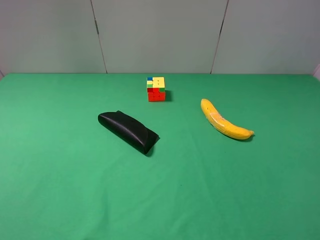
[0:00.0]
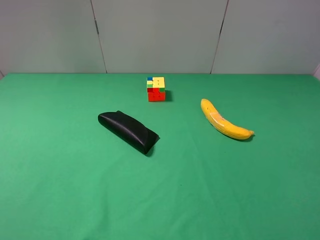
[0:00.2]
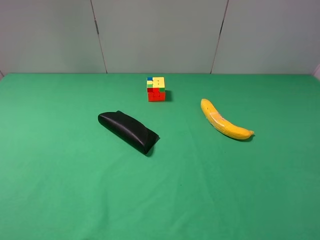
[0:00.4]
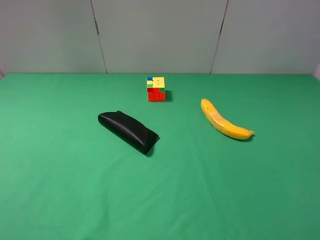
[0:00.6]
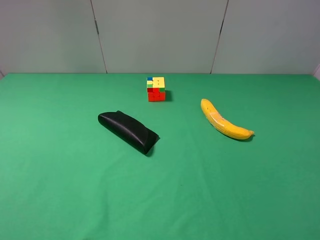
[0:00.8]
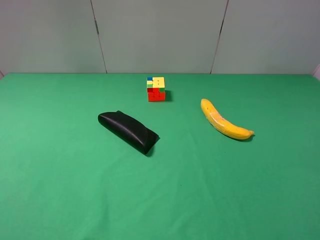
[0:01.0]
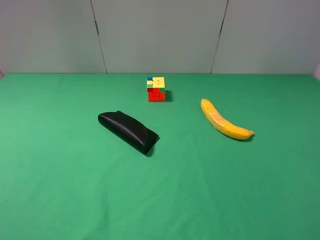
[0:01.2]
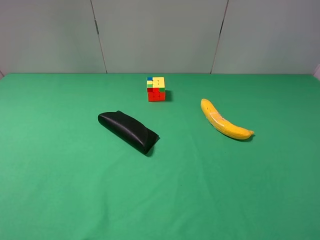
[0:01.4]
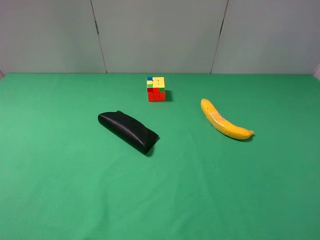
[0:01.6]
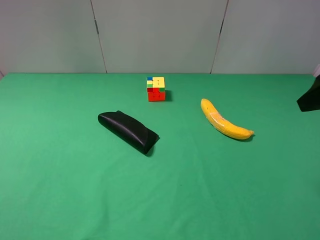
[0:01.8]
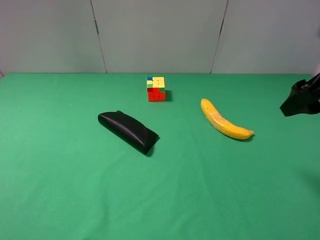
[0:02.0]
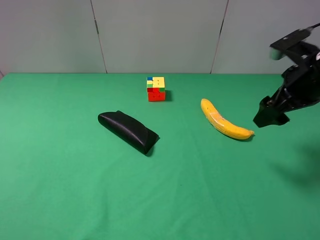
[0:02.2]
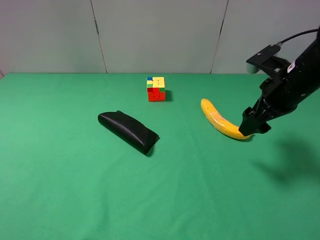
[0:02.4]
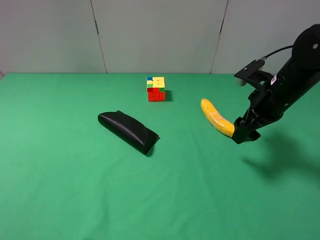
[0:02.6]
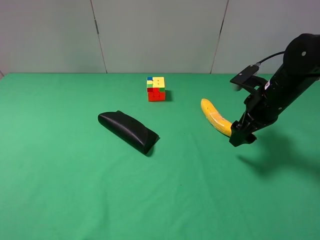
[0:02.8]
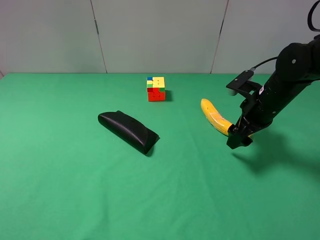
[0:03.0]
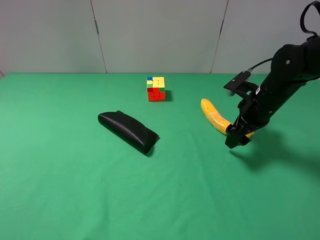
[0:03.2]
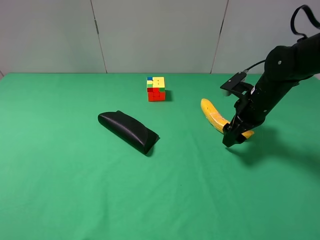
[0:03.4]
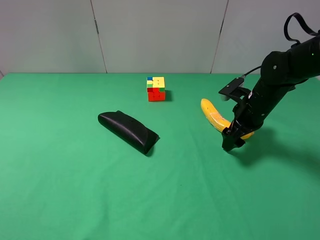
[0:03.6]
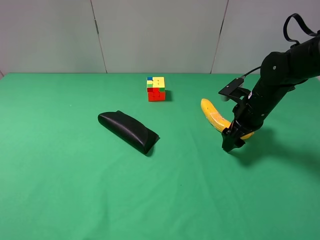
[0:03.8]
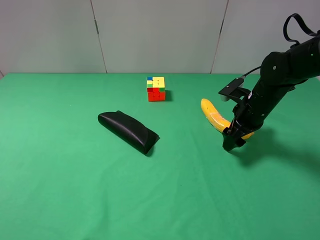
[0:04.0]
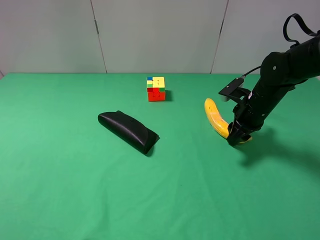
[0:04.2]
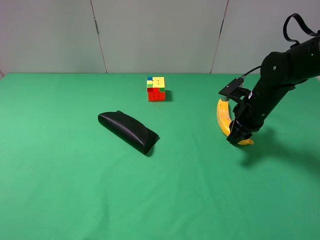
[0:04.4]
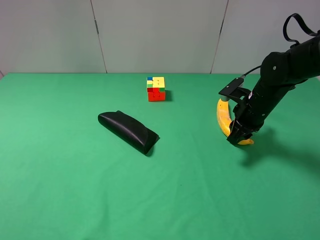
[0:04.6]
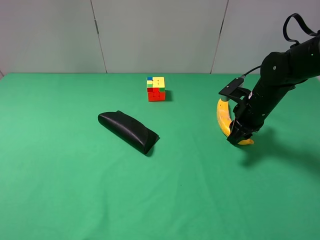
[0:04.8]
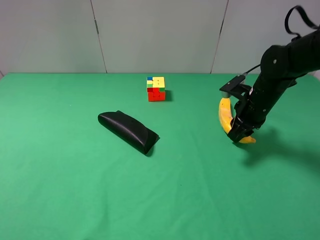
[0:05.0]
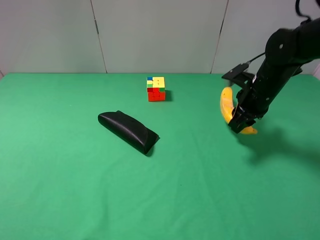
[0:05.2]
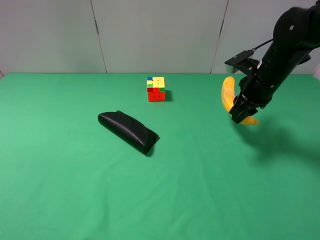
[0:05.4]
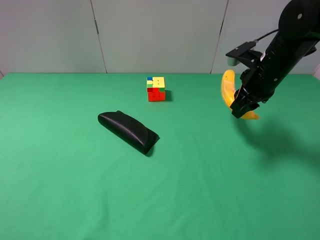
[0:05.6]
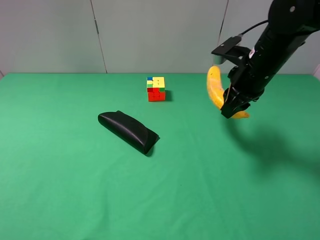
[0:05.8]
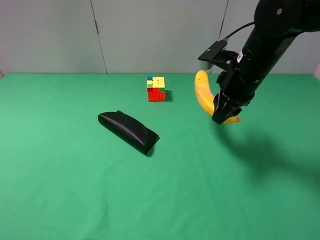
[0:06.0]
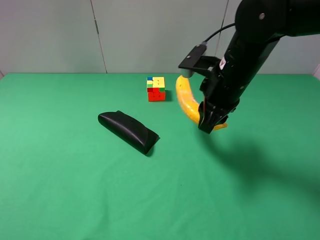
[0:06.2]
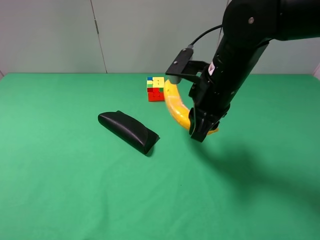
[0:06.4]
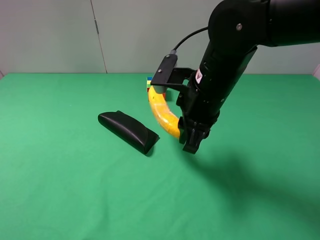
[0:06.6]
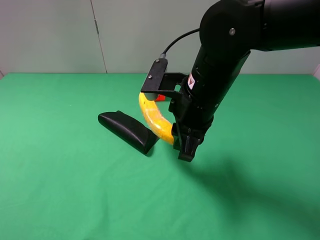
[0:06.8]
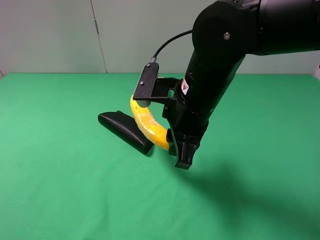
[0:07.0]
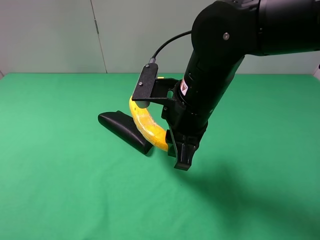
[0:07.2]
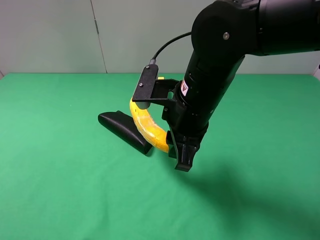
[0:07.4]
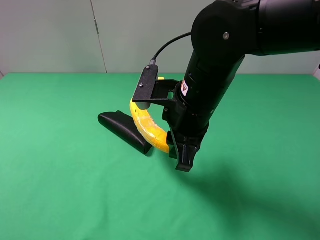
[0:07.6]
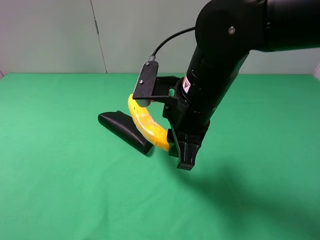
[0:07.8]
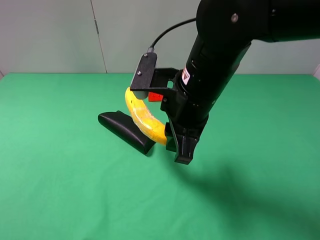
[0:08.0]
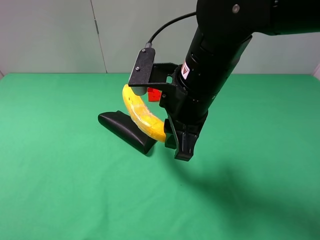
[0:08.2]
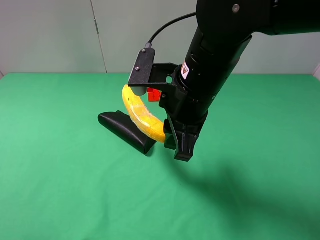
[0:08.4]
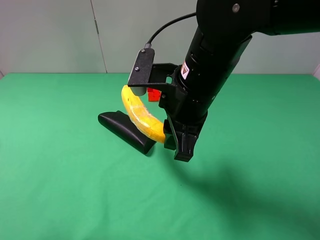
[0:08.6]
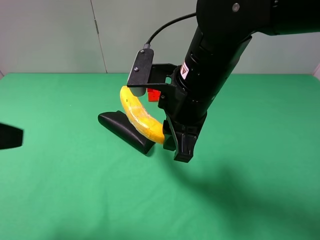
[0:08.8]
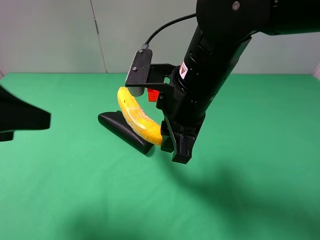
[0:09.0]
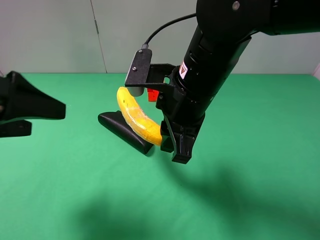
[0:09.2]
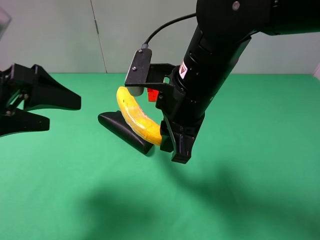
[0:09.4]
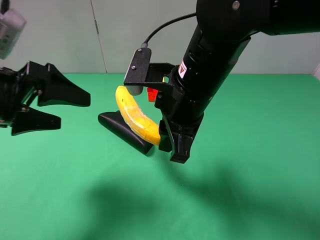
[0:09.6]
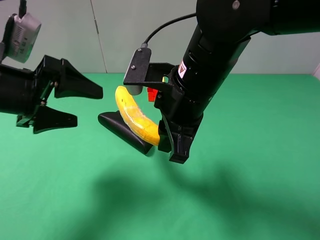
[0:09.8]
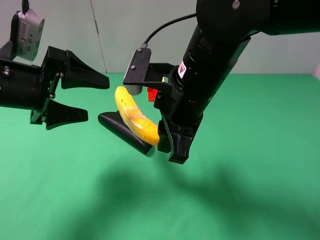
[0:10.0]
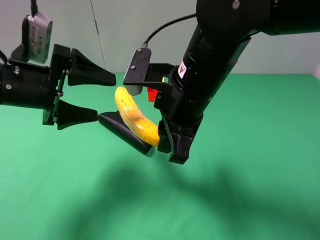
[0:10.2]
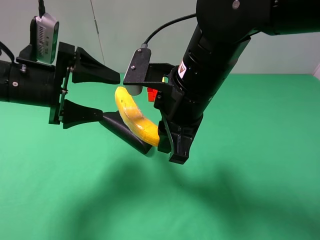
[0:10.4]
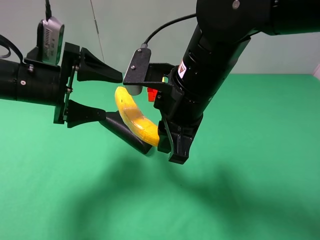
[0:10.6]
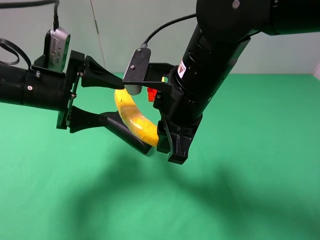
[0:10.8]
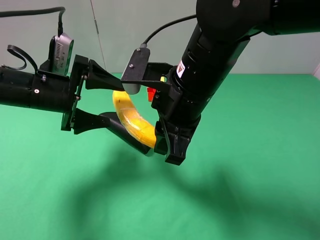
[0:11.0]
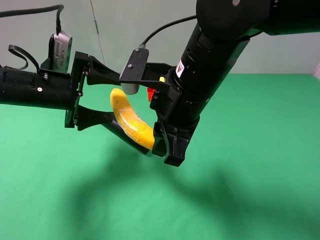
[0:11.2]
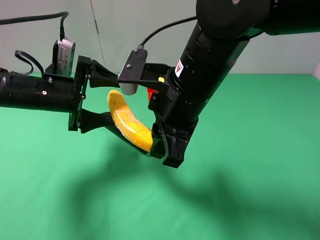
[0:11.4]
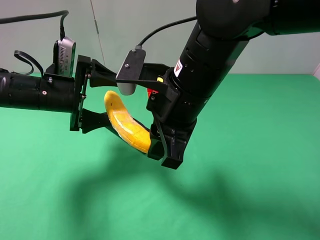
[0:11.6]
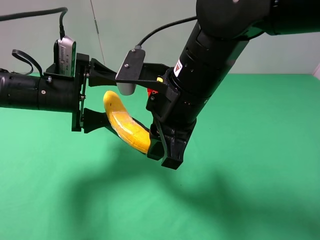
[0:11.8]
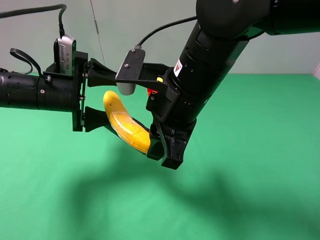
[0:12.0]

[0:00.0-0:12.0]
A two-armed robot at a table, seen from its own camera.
Task of the whole recording: use the right gripper to pick up the item and transfer it from the right gripper to the left gripper.
0:01.6 to 0:03.0: The right gripper heads downward and forward, covering about 25 cm.
0:03.0 to 0:04.4: The right gripper closes up.
0:04.4 to 0:06.0: The right gripper is displaced upward and to the left by about 15 cm.
0:06.0 to 0:07.6: The right gripper moves to the left and backward, some 10 cm.
0:07.6 to 0:09.0: The left gripper is displaced forward and to the right by about 15 cm.
0:09.0 to 0:10.4: The left gripper travels forward and downward by approximately 15 cm.
0:10.4 to 0:12.0: The left gripper changes place by roughly 5 cm.

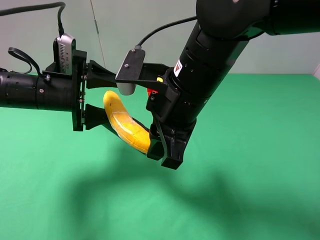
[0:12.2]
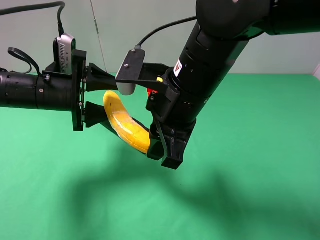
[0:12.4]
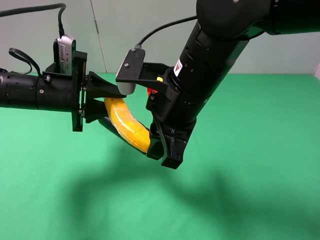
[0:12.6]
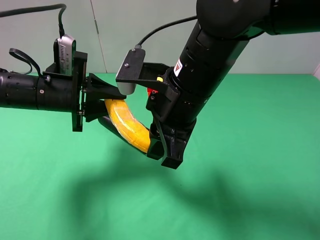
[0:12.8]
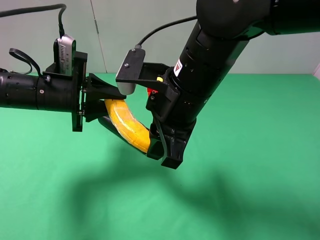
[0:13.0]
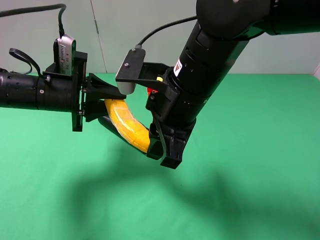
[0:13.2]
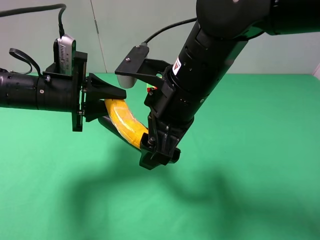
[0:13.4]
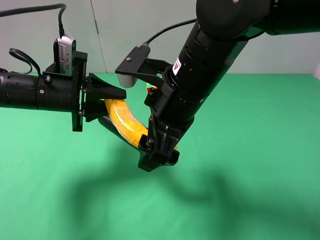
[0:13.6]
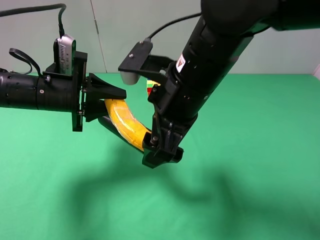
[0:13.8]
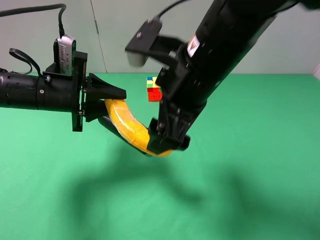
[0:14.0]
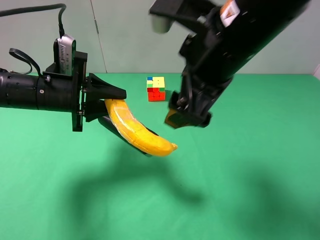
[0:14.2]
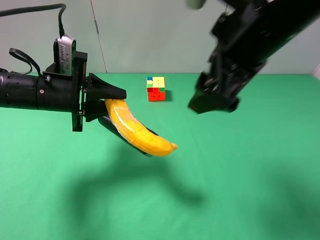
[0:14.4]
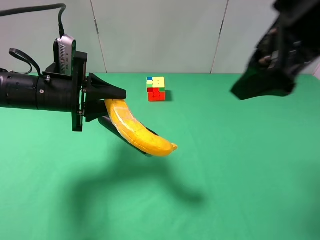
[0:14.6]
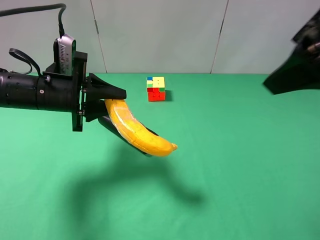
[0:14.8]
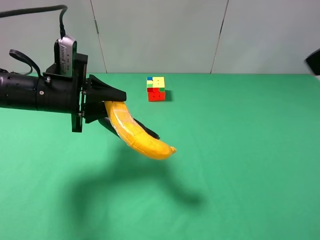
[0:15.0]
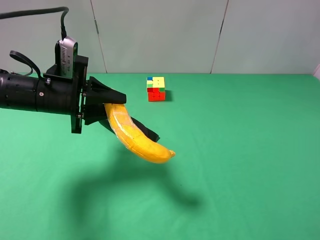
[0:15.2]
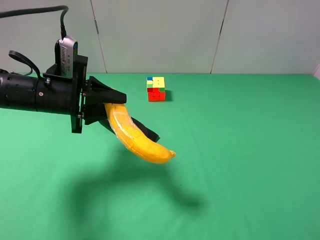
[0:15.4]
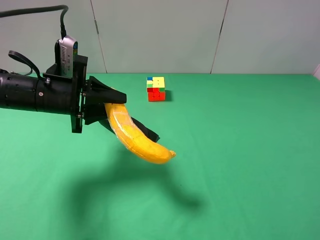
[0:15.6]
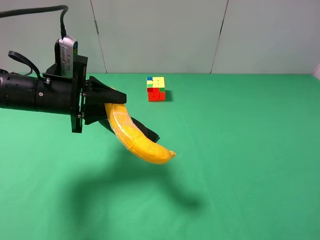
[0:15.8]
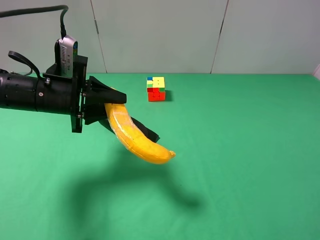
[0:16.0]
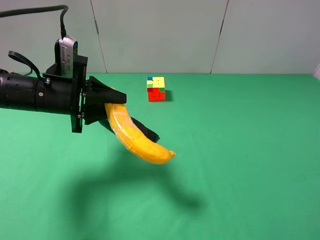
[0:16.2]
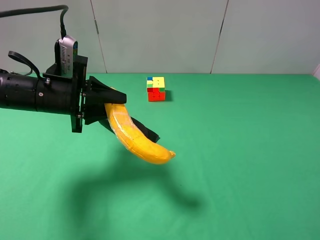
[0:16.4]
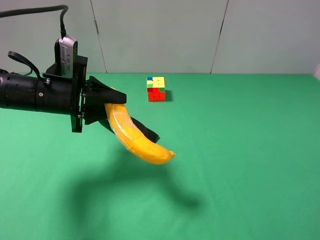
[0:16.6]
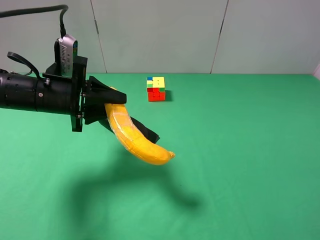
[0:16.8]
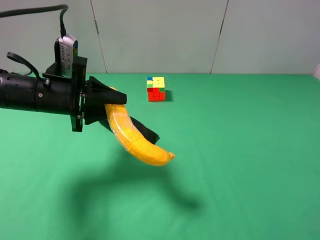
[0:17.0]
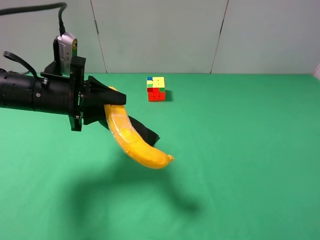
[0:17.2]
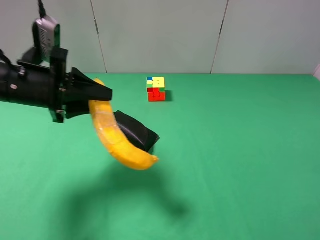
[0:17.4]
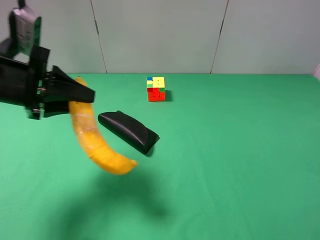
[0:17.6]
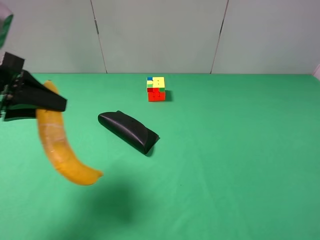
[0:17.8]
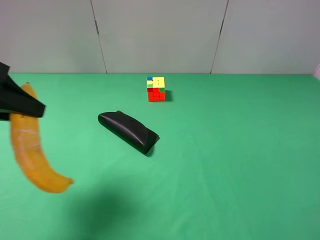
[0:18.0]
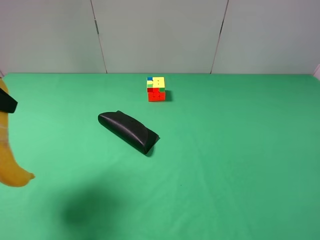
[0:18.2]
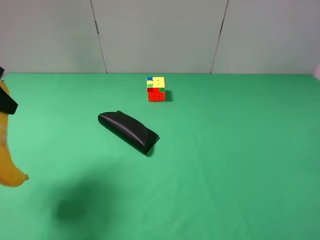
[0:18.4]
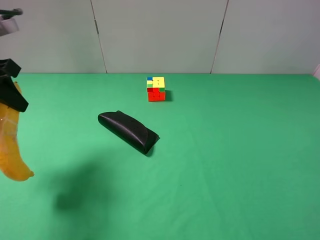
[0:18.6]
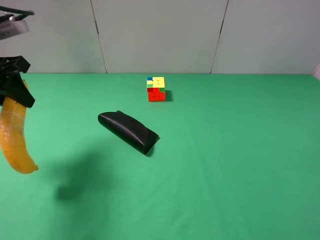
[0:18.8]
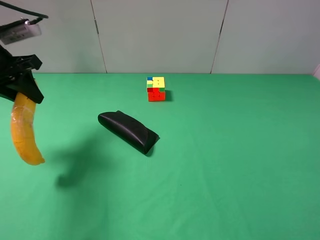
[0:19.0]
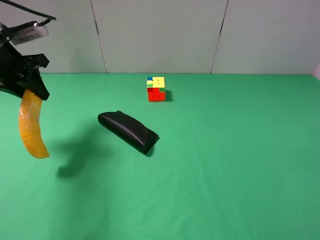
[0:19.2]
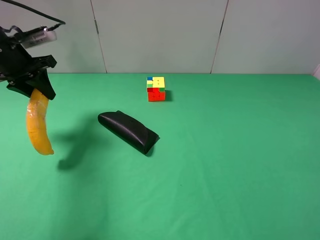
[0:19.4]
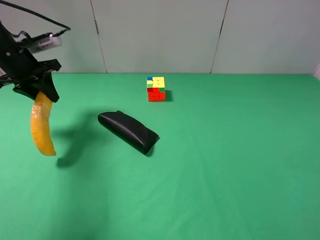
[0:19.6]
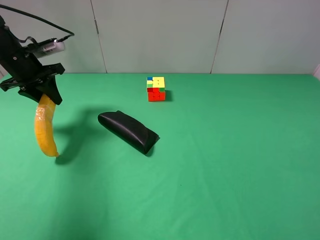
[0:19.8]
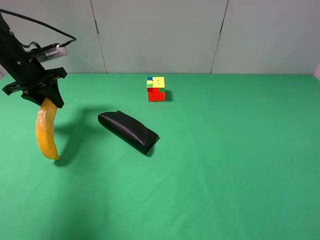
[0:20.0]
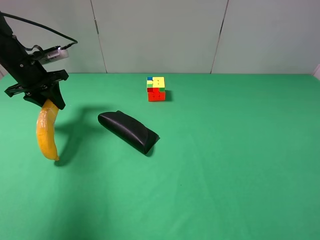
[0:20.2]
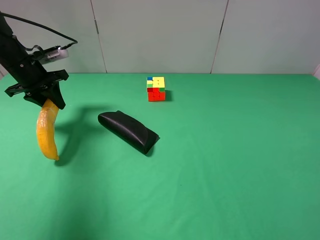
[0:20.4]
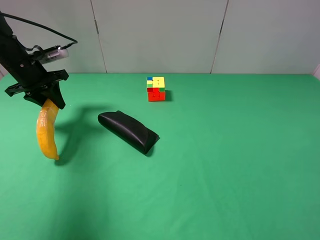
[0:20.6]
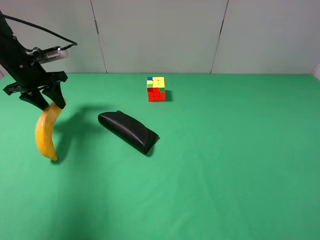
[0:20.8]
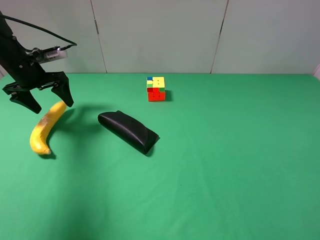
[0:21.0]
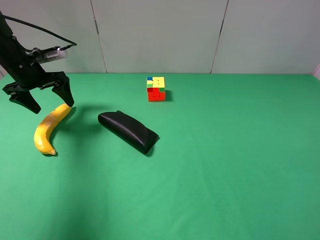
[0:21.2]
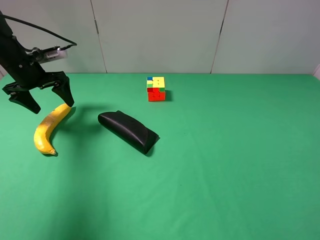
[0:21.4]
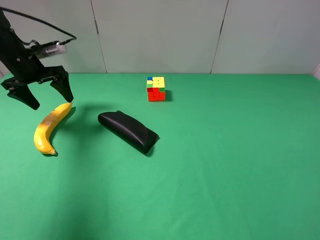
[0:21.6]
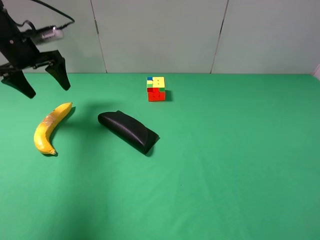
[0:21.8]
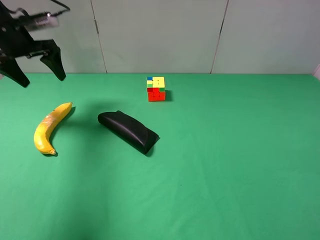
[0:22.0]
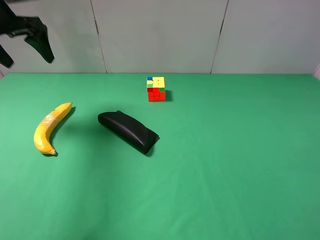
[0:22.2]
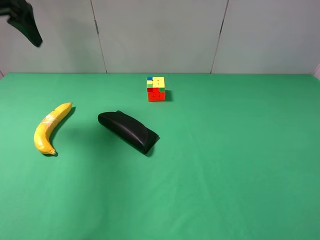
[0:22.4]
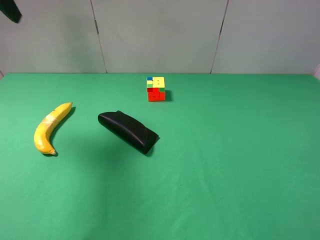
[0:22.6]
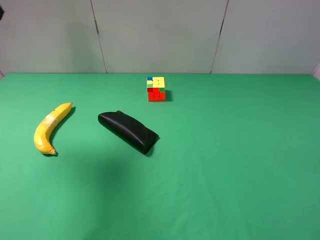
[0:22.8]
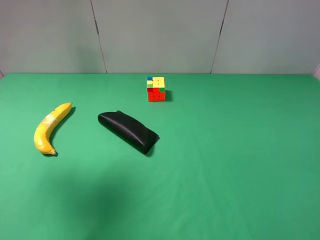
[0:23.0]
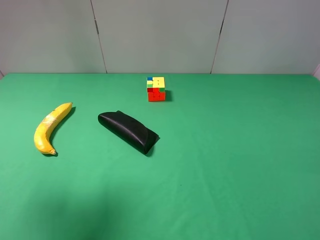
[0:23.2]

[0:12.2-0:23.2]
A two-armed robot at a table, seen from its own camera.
Task of the whole recording: use the right gripper to pick up the item and transfer it from the right gripper to the left gripper.
Step, 0:13.8 to 0:21.2: The left gripper places banana on the left side of the table.
0:12.2 to 0:13.8: The right gripper opens up; the left gripper closes its fingers.
0:13.8 to 0:15.4: The right gripper travels to the right and backward by roughly 30 cm.
0:15.4 to 0:17.0: The right gripper goes about 10 cm downward and backward.
0:17.0 to 0:18.4: The left gripper shifts approximately 15 cm upward and to the left.
0:18.4 to 0:20.0: The left gripper is displaced forward and downward by about 20 cm.
0:20.0 to 0:21.6: The left gripper opens up.
0:21.6 to 0:23.2: The left gripper travels backward and upward by roughly 30 cm.
